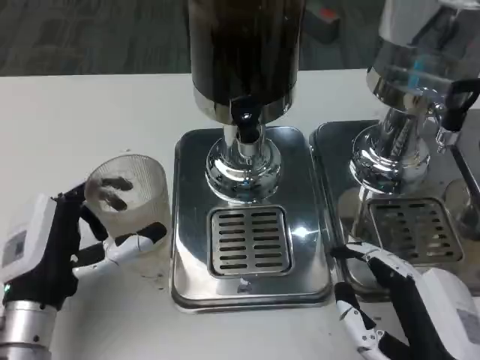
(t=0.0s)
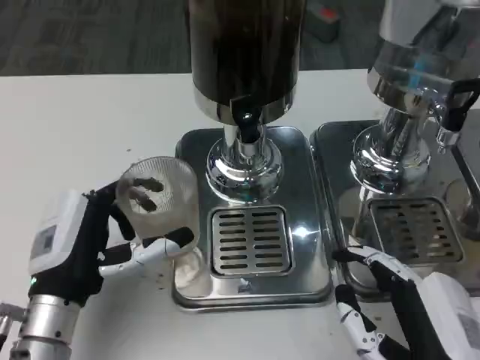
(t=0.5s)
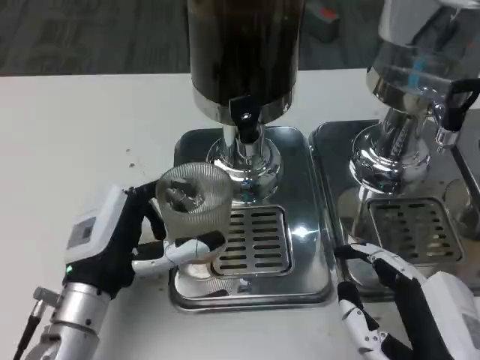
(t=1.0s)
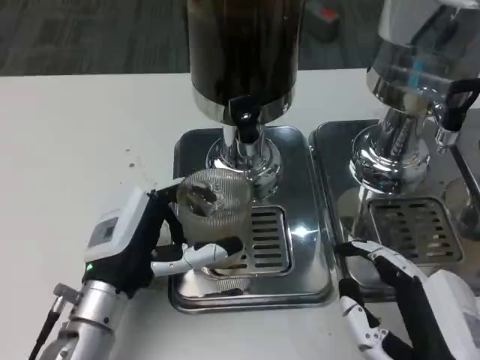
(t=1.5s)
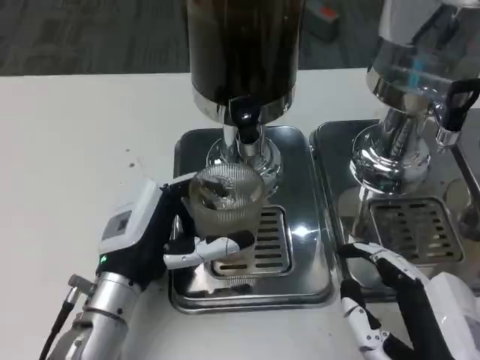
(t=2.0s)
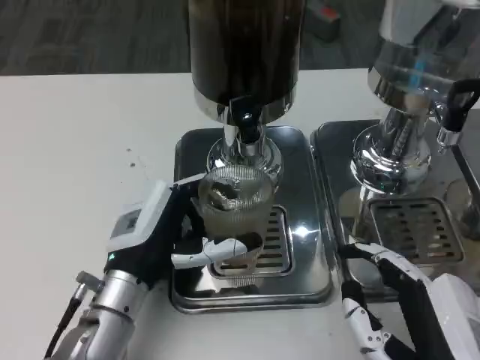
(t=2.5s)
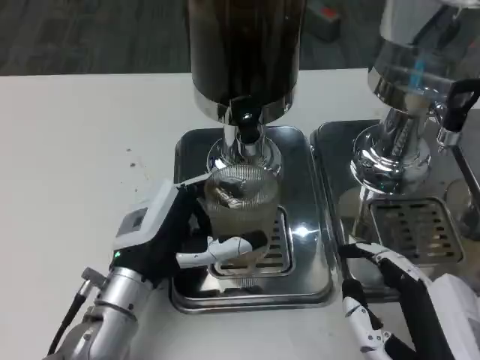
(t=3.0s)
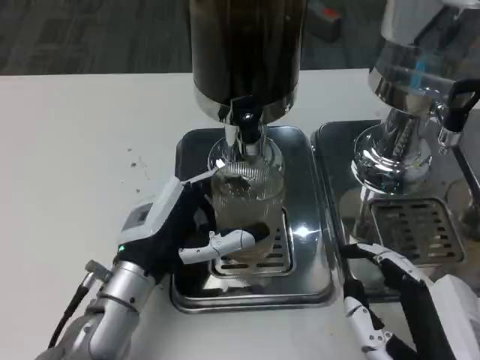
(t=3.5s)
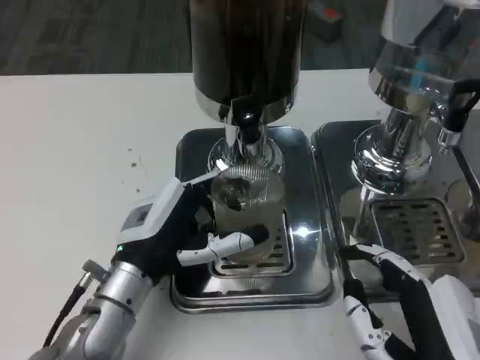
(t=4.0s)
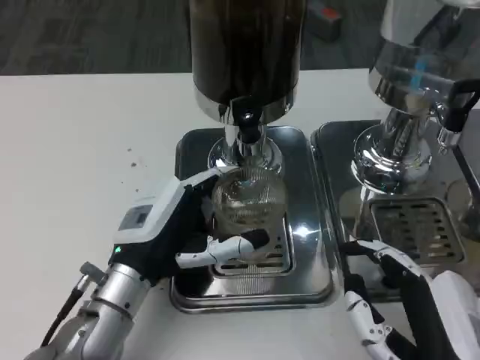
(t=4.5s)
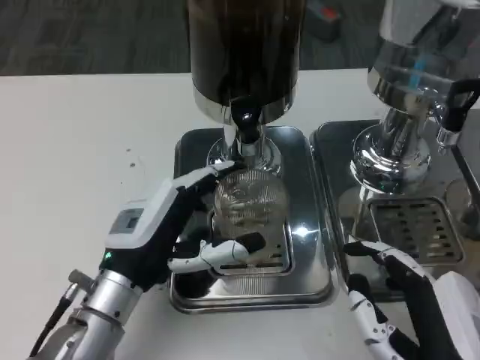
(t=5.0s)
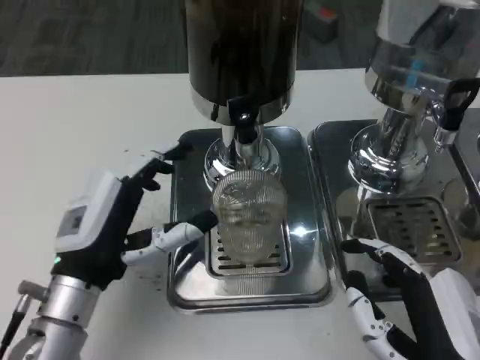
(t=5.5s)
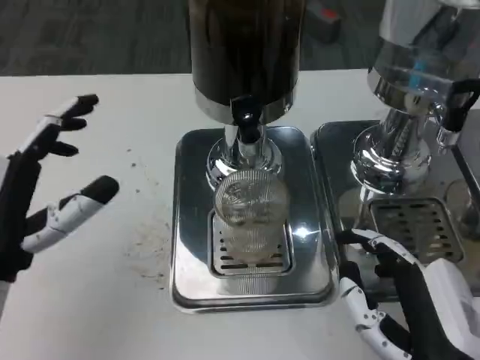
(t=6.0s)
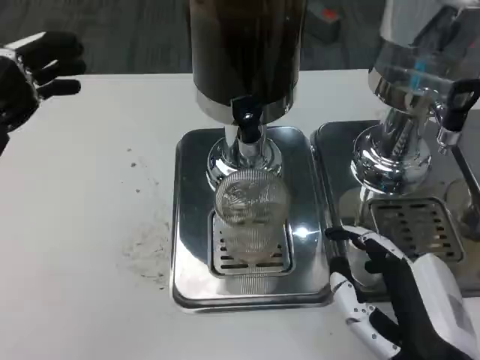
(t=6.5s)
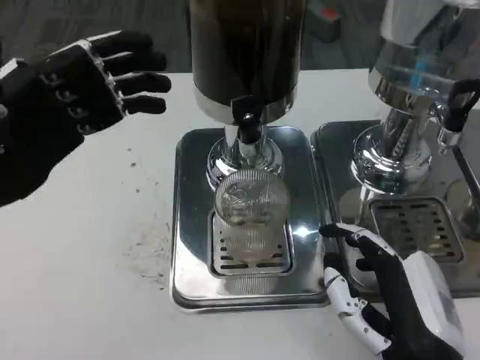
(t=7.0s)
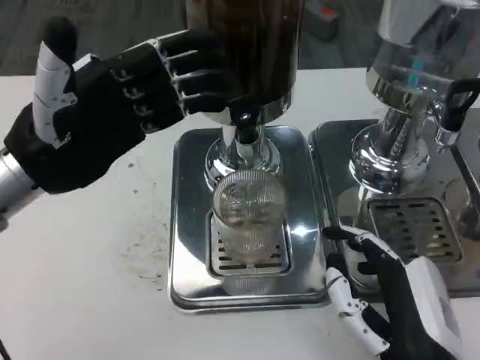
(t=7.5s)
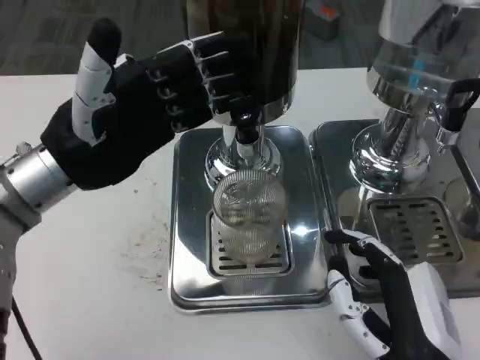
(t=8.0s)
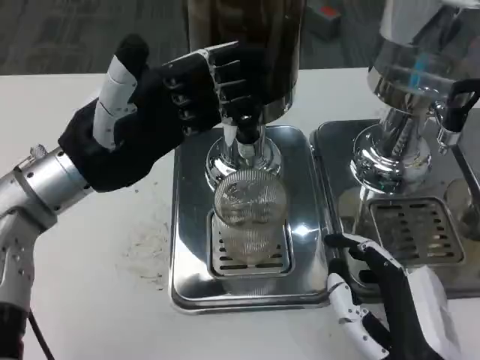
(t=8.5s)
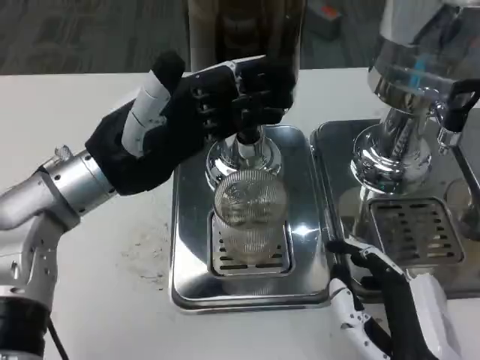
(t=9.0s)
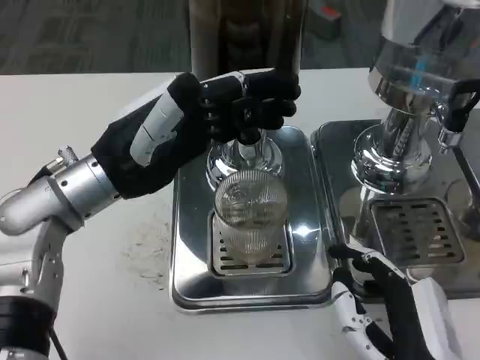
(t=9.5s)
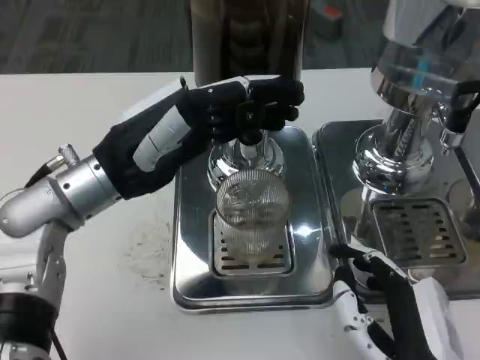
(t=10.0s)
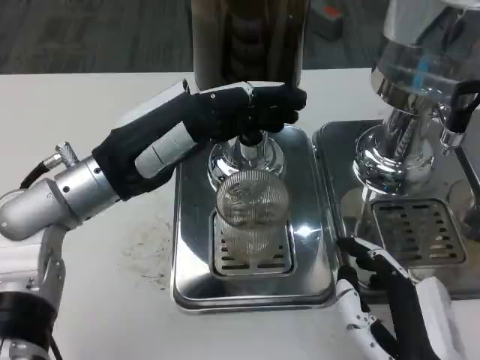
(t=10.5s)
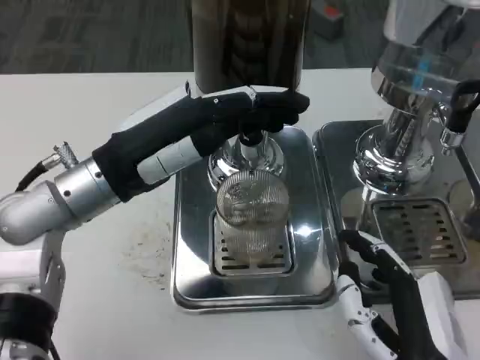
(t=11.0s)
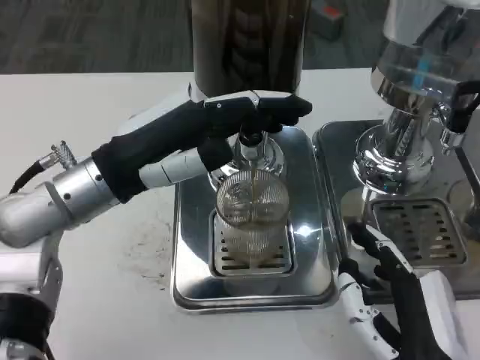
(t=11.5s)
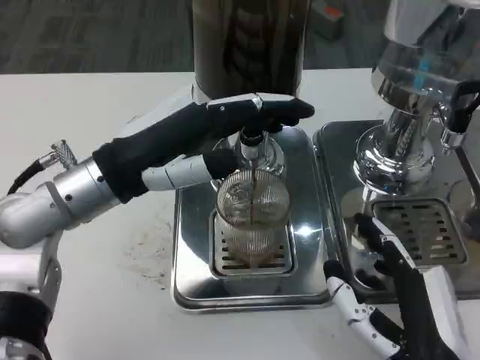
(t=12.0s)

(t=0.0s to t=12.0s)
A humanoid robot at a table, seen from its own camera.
Task of the whole recording: Grasp the cup under the faucet to collect the drink, then remove the cup.
t=0.0s - t=2.0s: The left hand heads to the right, covering roughly 5 cm.
t=2.0s - t=4.0s: The hands stay close to where they were, moving slightly.
t=4.0s - t=6.0s: The left hand heads to the left and upward, covering about 10 cm.
t=6.0s - t=8.0s: The left hand shifts about 10 cm forward and upward.

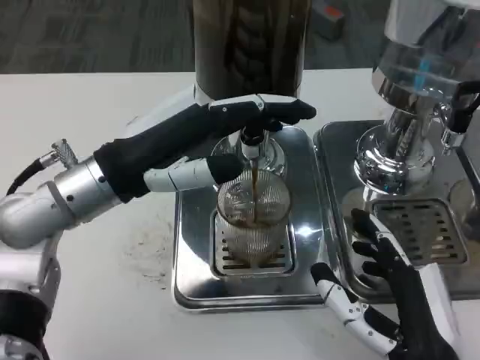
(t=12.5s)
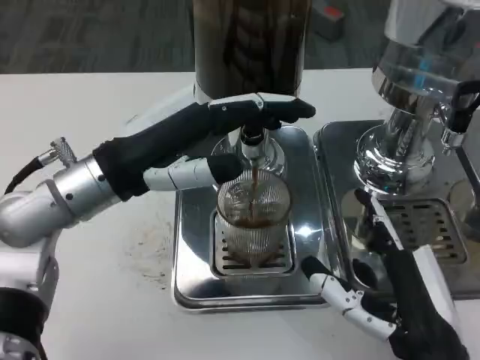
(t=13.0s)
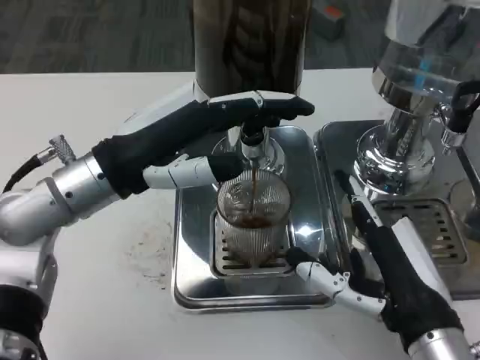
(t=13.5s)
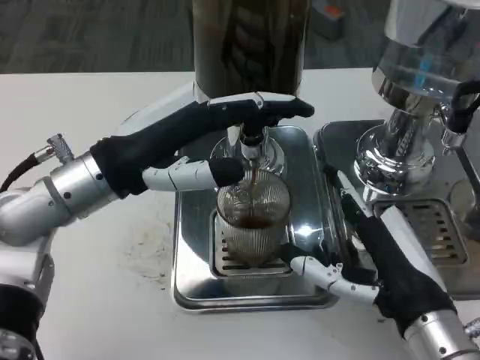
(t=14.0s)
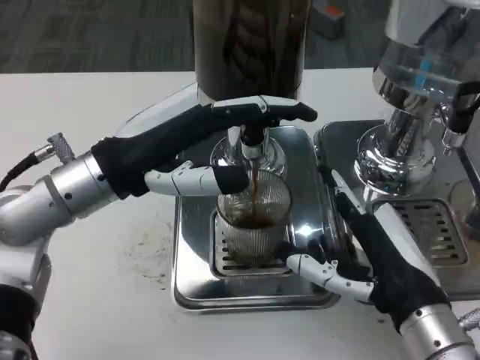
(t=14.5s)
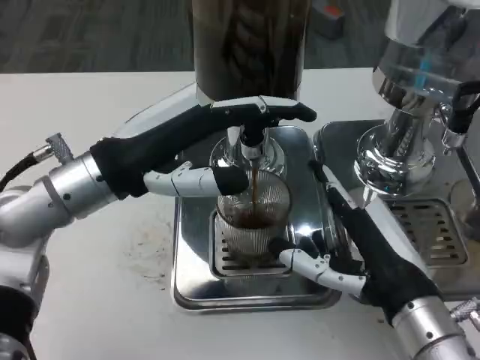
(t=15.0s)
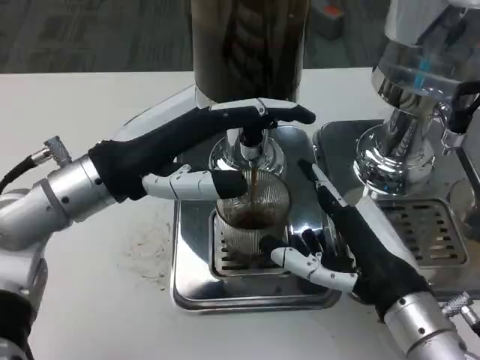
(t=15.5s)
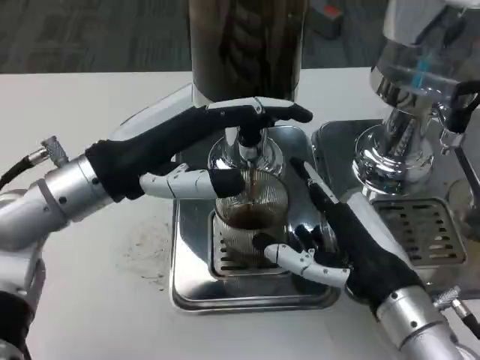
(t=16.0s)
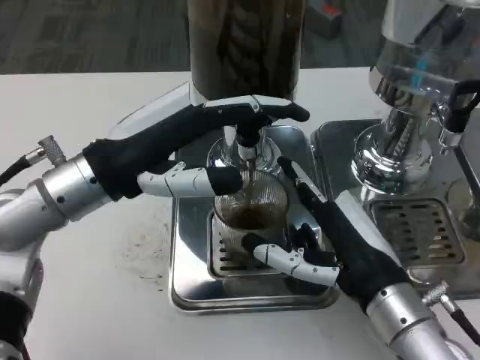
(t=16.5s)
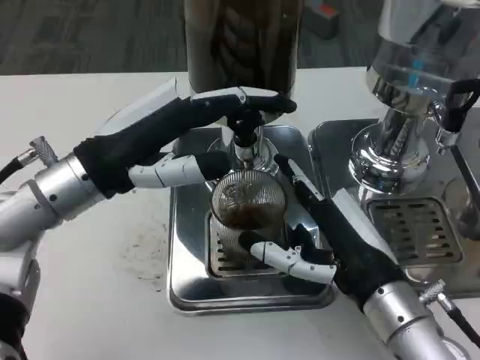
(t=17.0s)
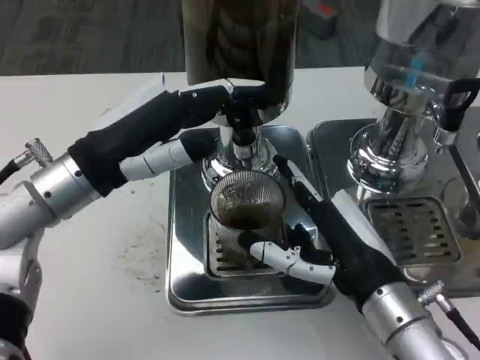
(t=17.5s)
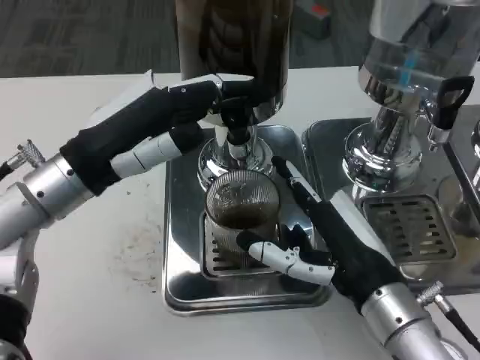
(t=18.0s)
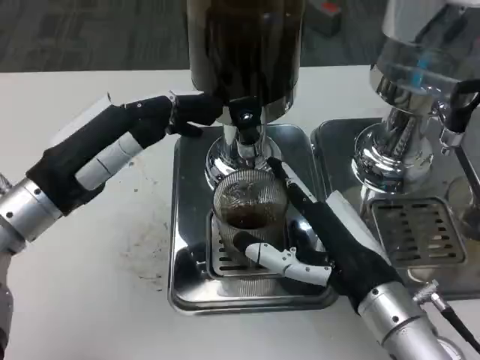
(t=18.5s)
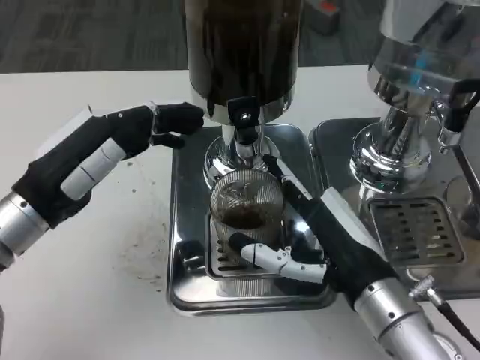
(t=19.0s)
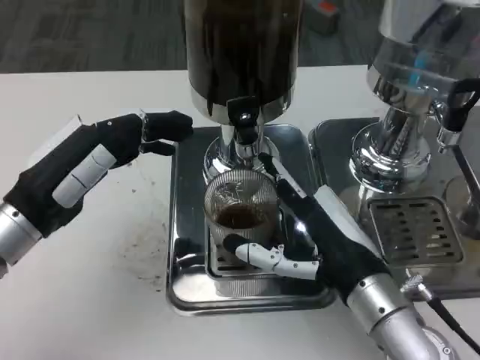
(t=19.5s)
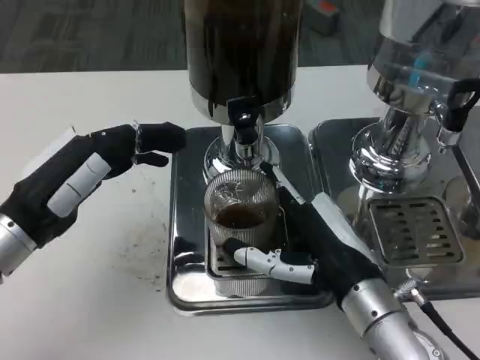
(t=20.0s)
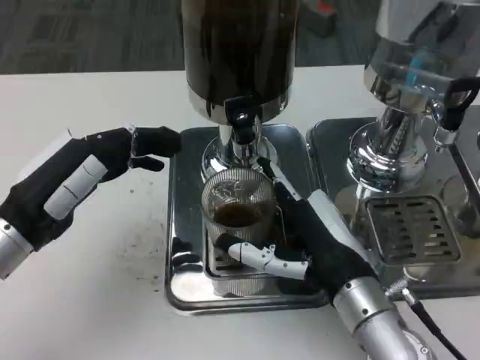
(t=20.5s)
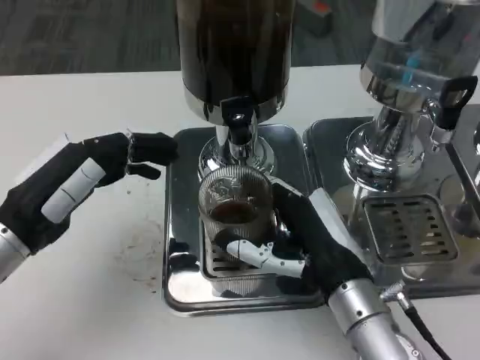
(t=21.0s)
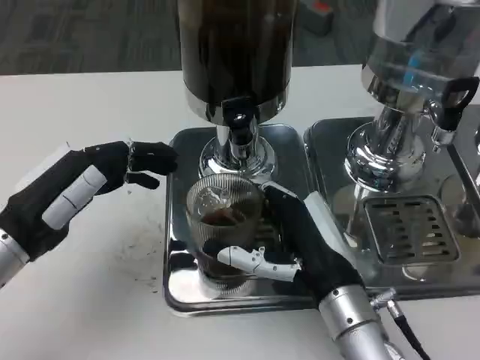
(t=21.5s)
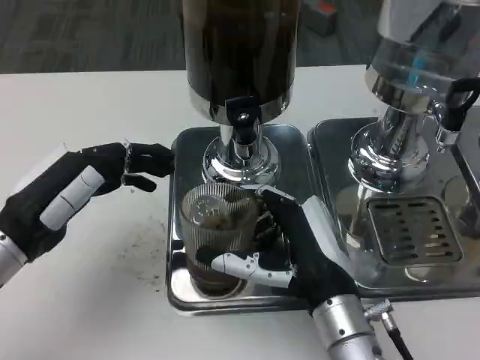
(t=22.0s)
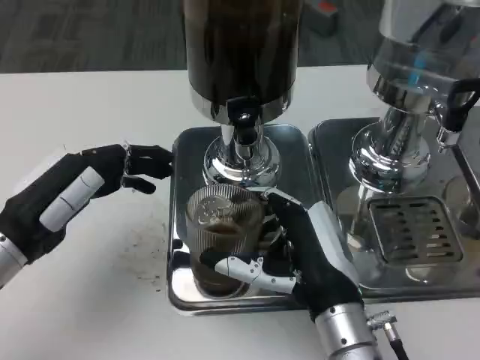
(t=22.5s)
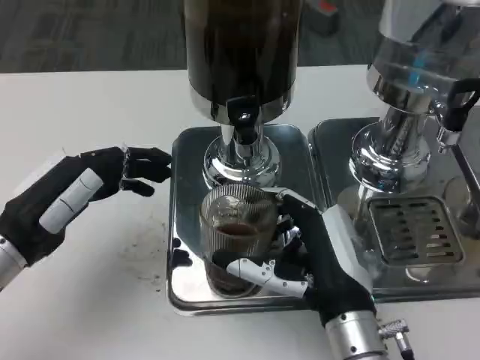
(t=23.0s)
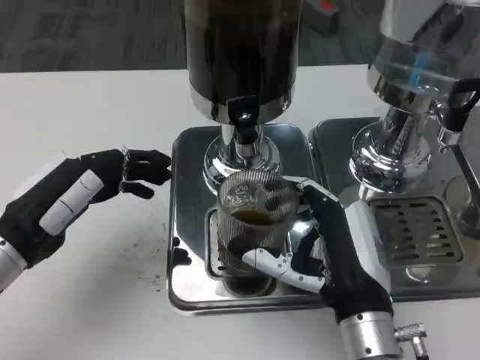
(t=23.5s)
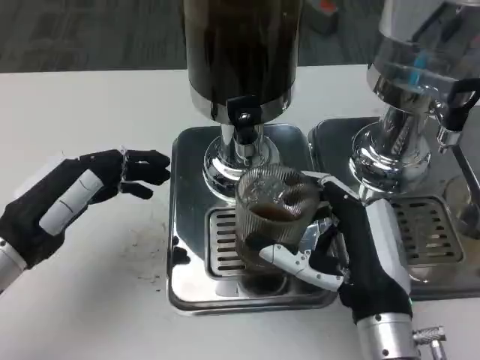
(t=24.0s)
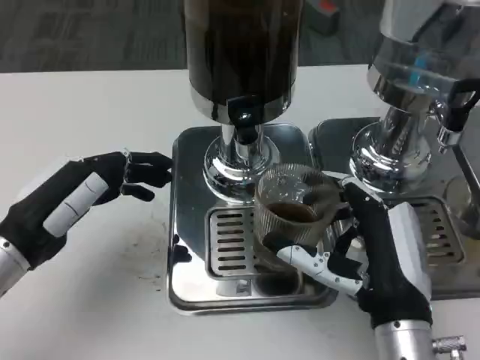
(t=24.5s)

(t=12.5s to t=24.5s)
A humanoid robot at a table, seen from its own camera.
Task of the whole recording: Grasp the cup under the faucet to collect the drink, then remove the cup.
t=12.5s - t=14.5s: The right hand shifts about 5 cm forward.
t=16.5s - t=18.5s: The left hand shifts by approximately 5 cm.

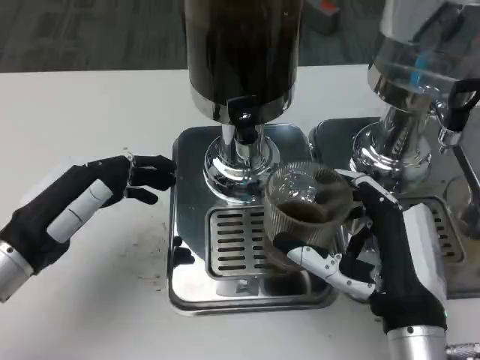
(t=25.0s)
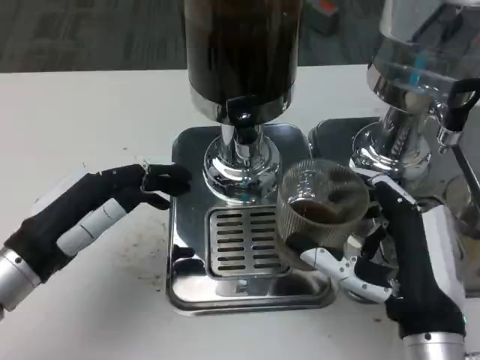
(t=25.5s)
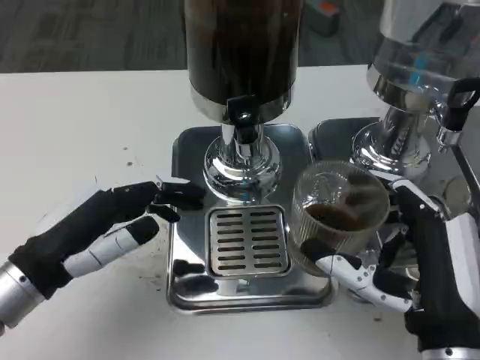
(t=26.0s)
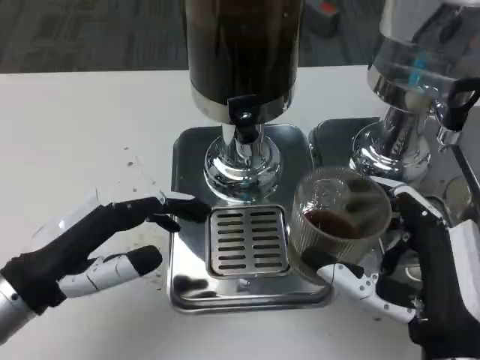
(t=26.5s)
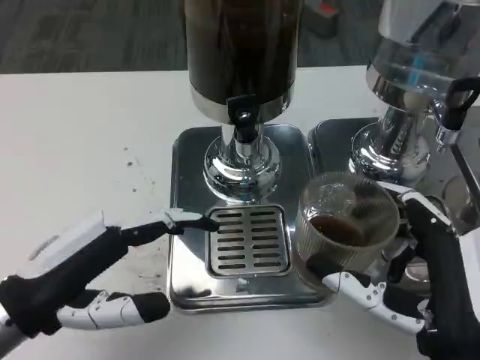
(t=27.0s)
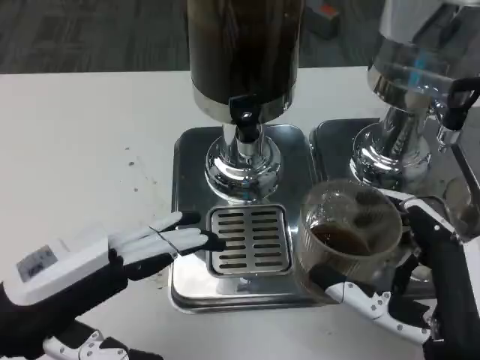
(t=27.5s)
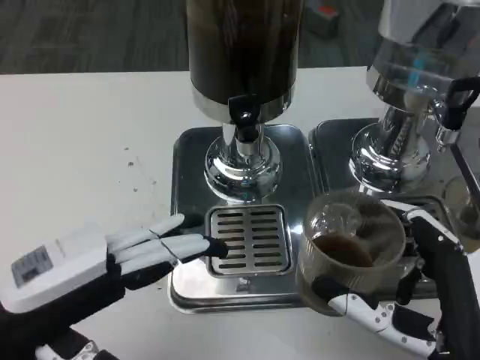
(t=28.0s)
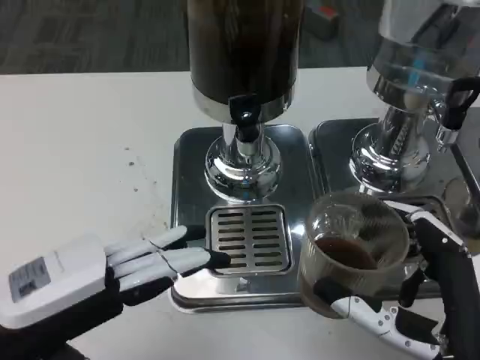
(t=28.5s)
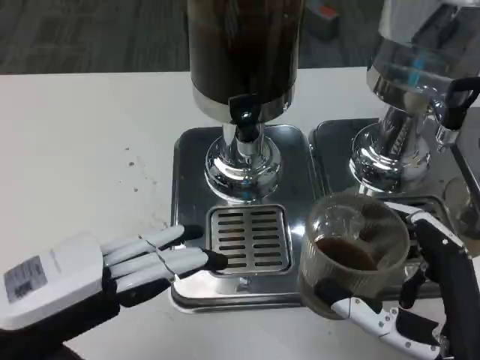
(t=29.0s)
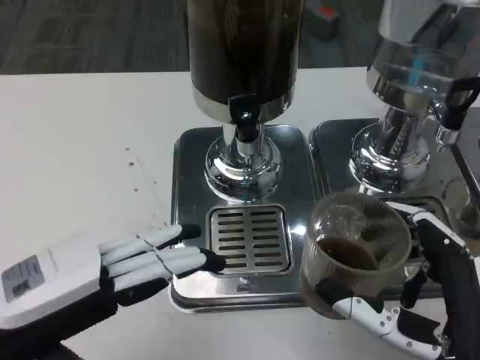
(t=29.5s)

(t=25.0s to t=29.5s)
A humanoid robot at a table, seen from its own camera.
Task of the whole recording: Grasp the cup under the faucet to collect the drink, then remove the cup.
t=25.0s - t=27.0s: The right hand changes place by approximately 5 cm; the left hand heads backward, covering some 5 cm.
